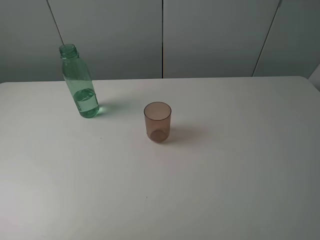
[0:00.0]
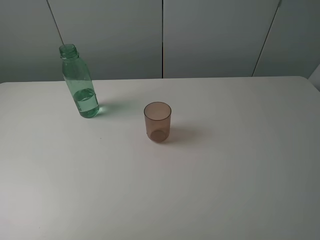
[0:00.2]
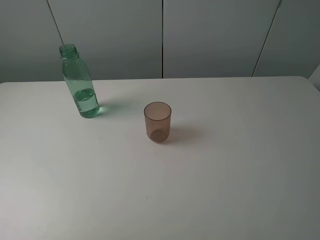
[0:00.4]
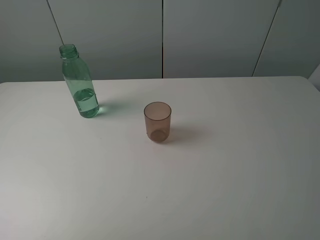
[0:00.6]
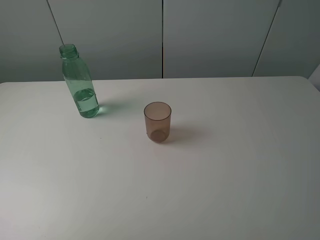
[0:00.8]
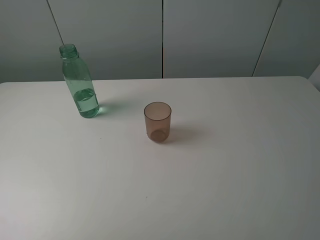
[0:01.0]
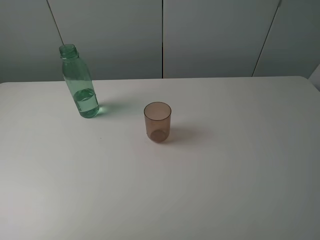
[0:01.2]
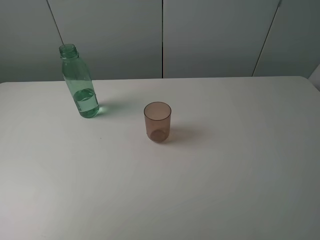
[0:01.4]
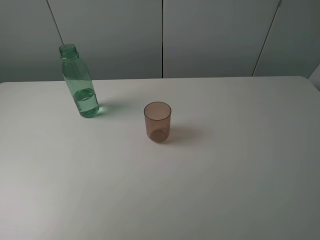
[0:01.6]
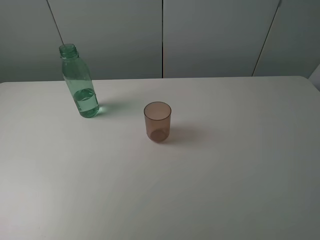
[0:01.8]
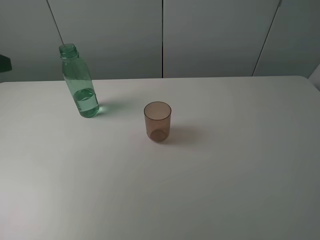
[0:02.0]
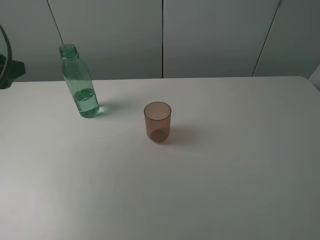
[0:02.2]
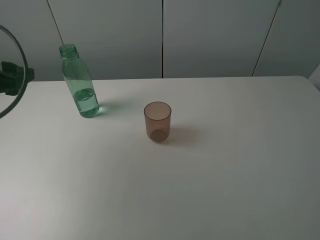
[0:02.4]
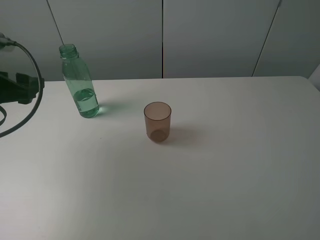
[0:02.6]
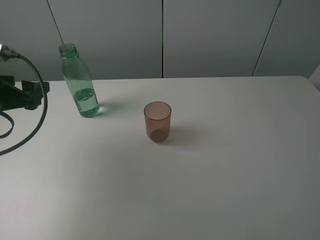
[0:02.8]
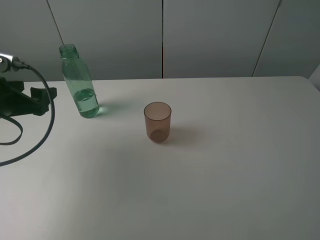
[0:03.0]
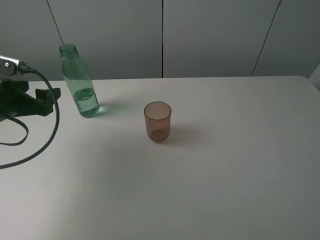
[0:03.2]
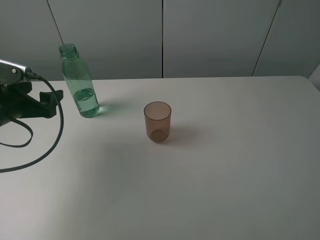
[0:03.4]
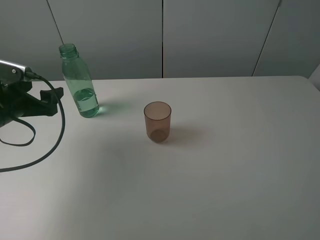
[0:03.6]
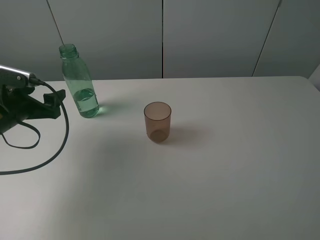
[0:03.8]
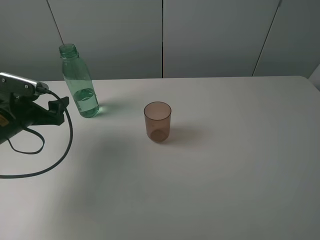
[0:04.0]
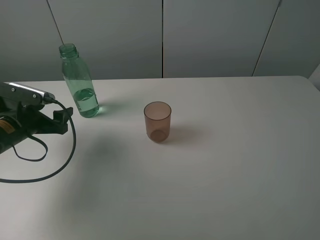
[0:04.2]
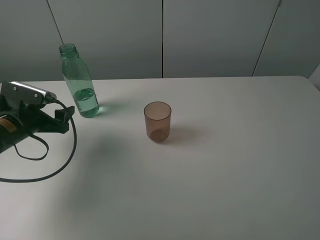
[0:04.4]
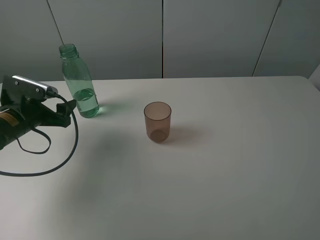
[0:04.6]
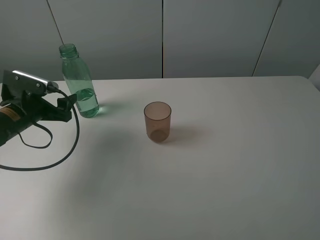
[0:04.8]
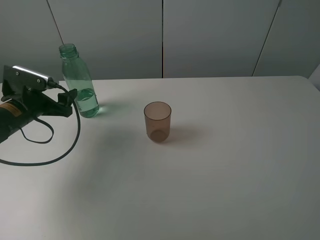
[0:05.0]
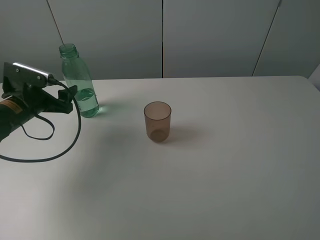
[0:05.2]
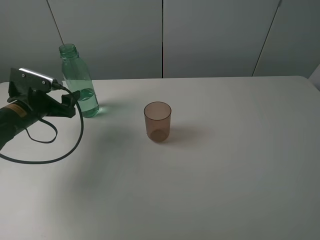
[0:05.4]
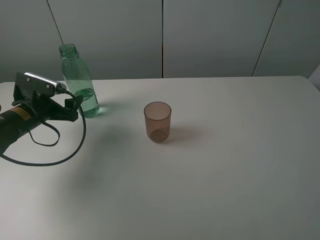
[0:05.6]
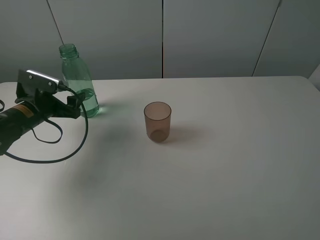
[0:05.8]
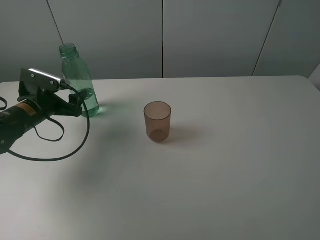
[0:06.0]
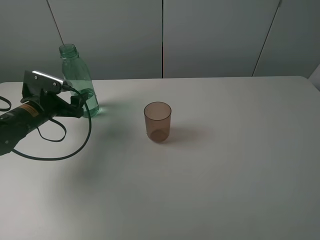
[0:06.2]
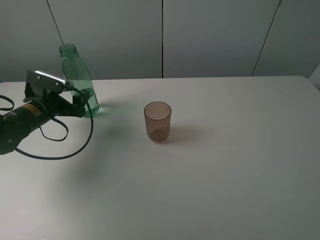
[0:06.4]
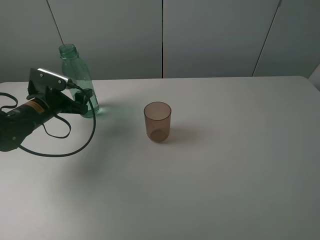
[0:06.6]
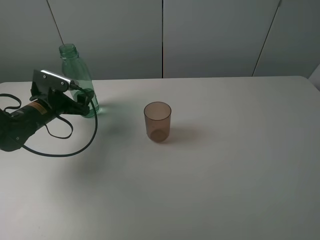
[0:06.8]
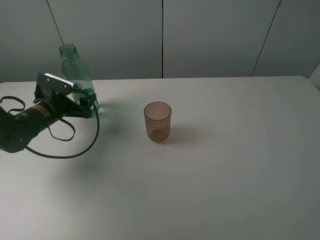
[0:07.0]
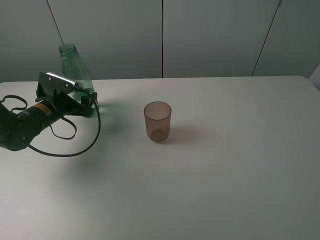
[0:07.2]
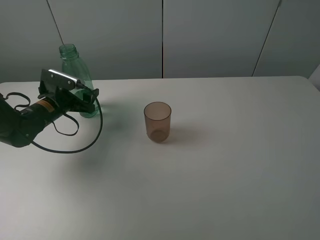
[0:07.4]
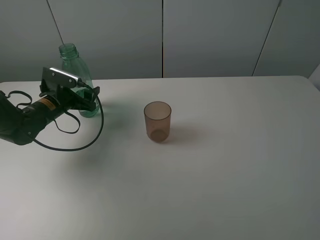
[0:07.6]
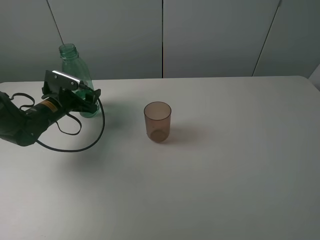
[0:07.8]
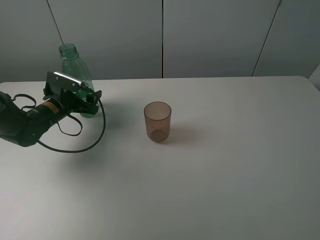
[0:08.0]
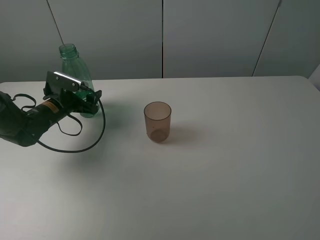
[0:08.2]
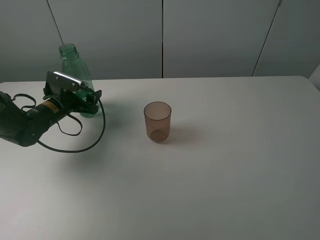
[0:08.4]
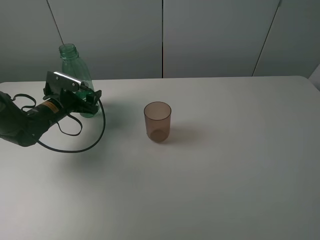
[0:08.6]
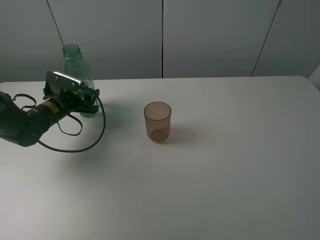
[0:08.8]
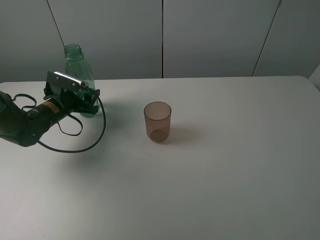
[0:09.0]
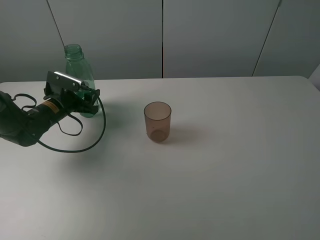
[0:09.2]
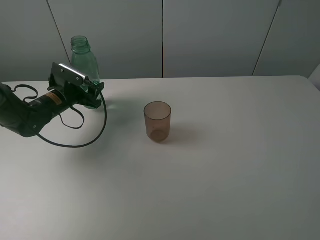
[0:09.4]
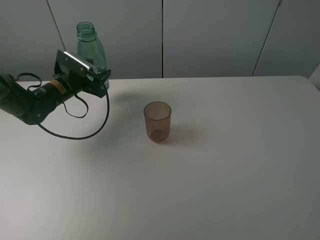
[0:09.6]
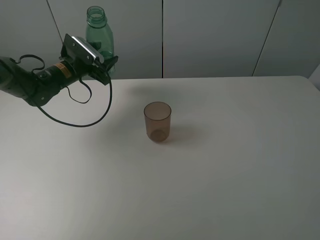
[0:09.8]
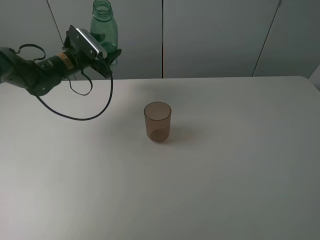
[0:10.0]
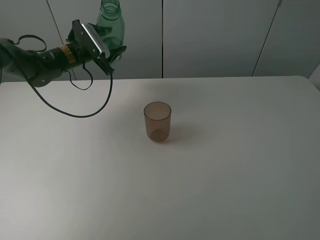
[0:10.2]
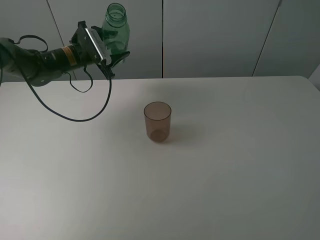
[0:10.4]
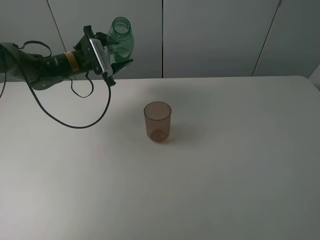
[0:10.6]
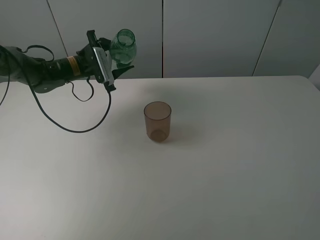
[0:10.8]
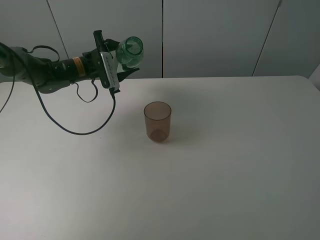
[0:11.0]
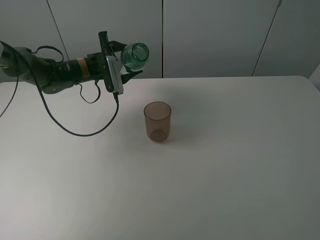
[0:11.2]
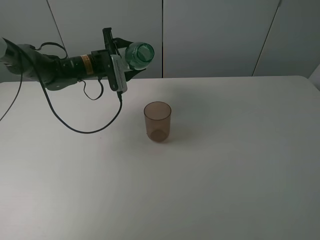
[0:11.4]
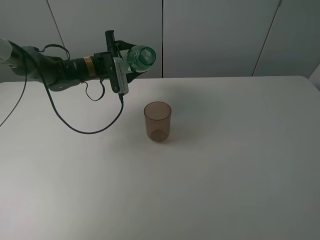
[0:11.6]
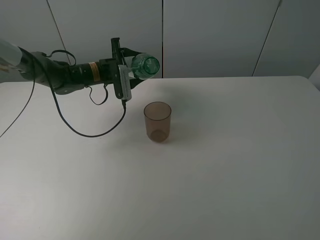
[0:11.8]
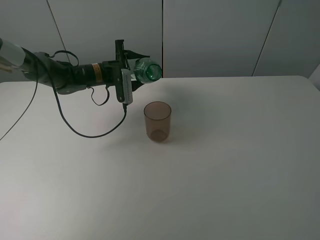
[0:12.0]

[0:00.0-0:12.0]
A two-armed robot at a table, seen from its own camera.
Task of the whole recording: pick up the bottle filled with water and pour it into the pink cup.
Step, 0:00.0 to 0:08.8: Grasp the green bottle with the left gripper.
0:01.6 to 0:03.0: The left gripper travels downward and forward by approximately 20 cm.
0:03.0 to 0:04.4: The left gripper is displaced downward by roughly 5 cm.
0:04.4 to 0:06.0: The left gripper ends up about 5 cm from where it was.
0:06.0 to 0:07.6: The left gripper changes place by about 5 cm.
0:07.6 to 0:09.0: The left gripper closes up.
0:09.0 to 0:10.4: The left gripper travels upward, forward and to the right by approximately 15 cm.
0:10.4 to 0:12.0: The left gripper is displaced to the right by some 5 cm.

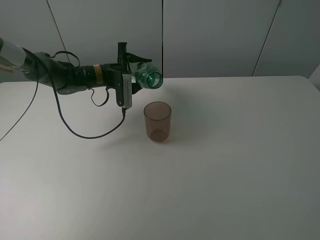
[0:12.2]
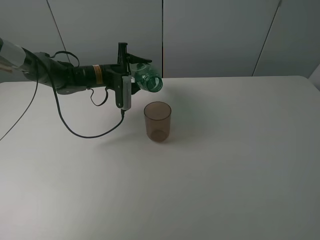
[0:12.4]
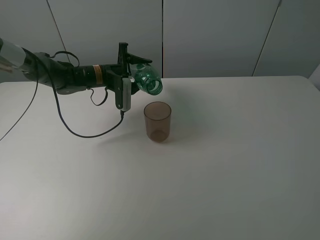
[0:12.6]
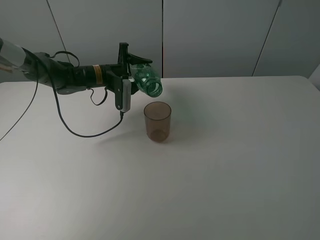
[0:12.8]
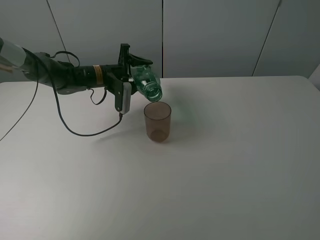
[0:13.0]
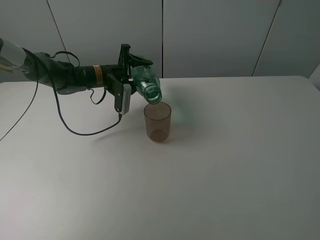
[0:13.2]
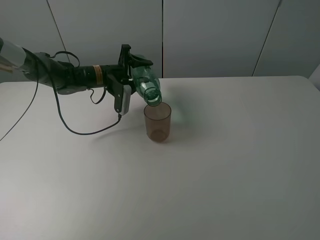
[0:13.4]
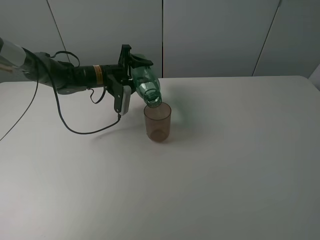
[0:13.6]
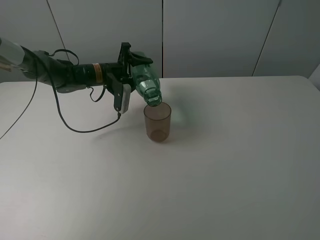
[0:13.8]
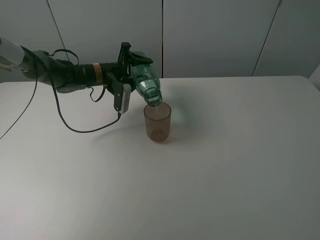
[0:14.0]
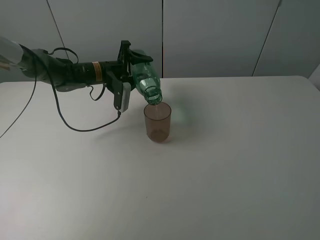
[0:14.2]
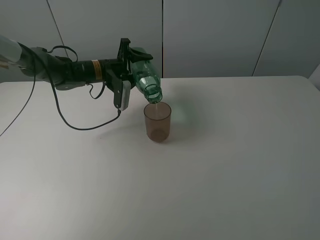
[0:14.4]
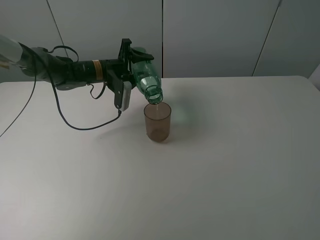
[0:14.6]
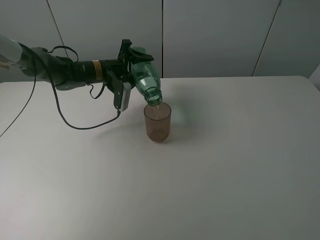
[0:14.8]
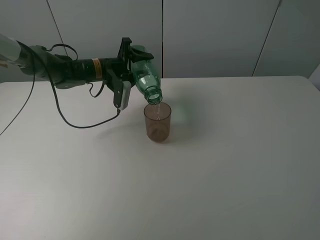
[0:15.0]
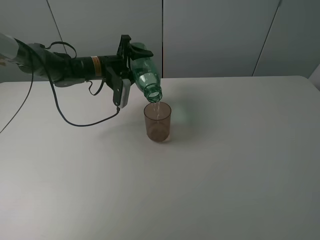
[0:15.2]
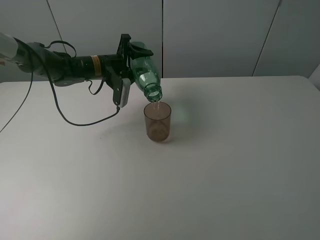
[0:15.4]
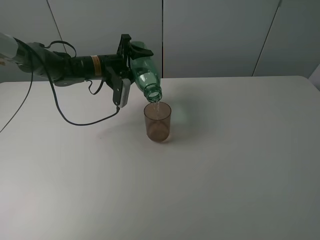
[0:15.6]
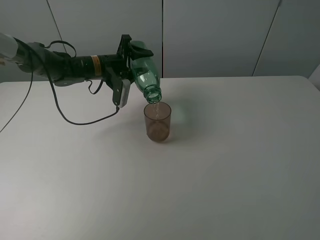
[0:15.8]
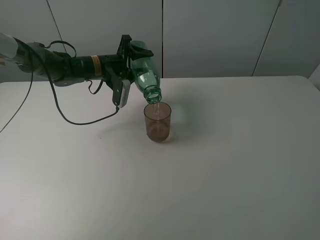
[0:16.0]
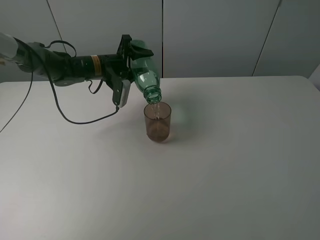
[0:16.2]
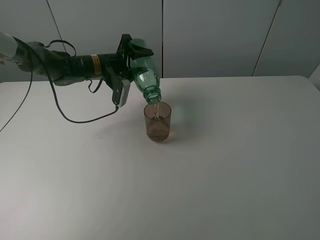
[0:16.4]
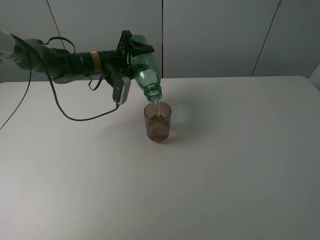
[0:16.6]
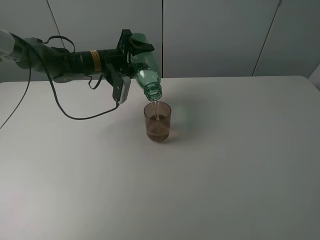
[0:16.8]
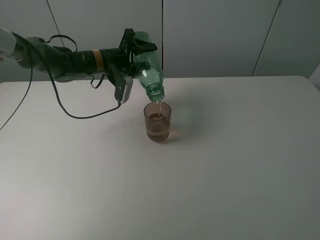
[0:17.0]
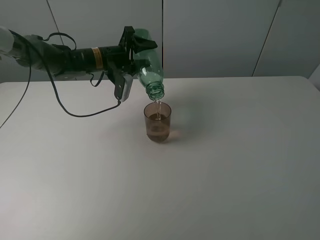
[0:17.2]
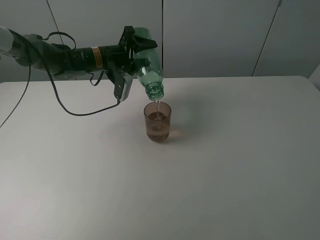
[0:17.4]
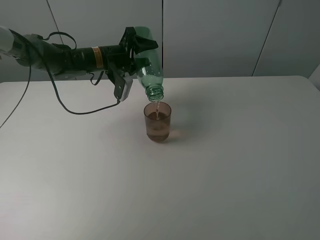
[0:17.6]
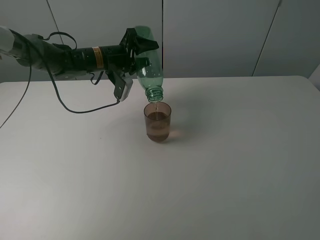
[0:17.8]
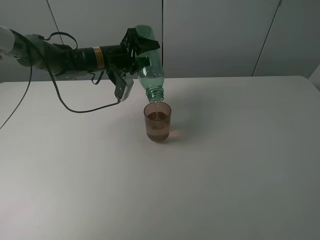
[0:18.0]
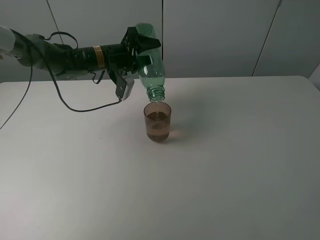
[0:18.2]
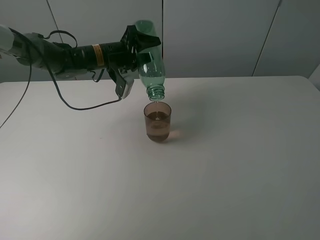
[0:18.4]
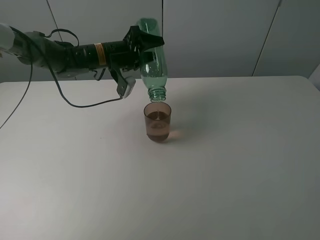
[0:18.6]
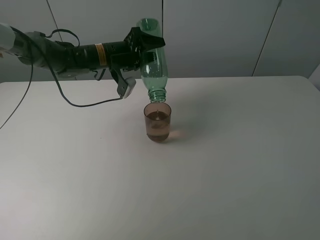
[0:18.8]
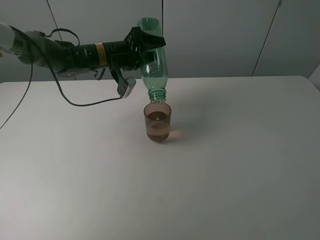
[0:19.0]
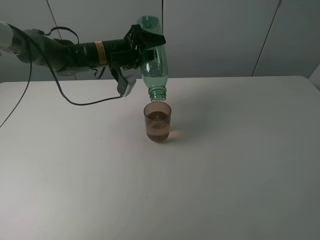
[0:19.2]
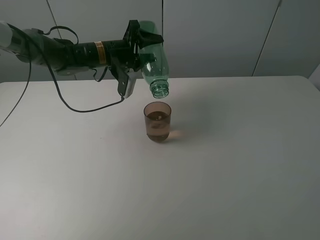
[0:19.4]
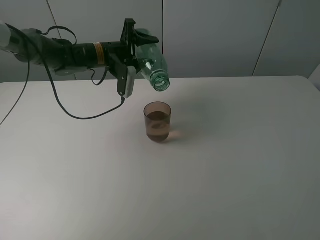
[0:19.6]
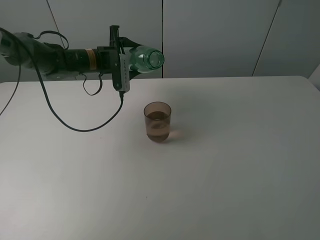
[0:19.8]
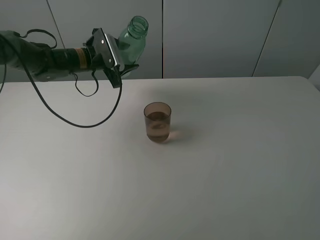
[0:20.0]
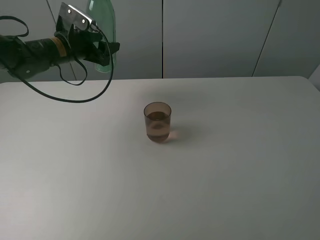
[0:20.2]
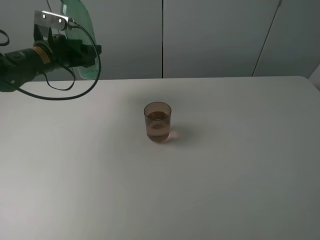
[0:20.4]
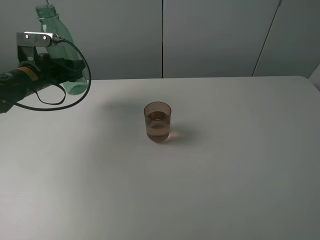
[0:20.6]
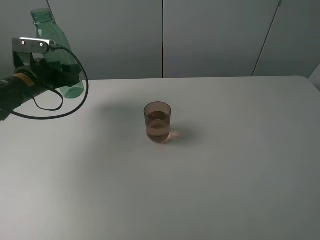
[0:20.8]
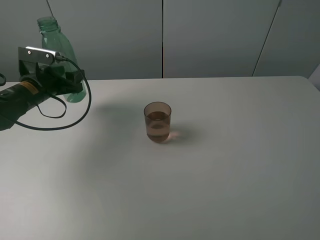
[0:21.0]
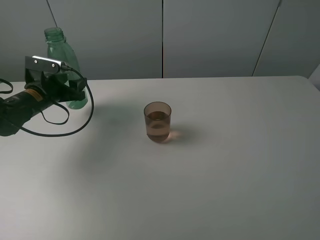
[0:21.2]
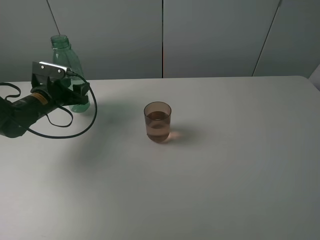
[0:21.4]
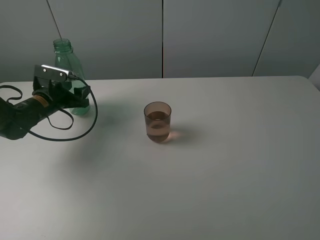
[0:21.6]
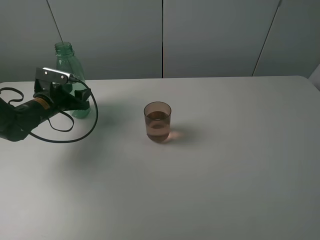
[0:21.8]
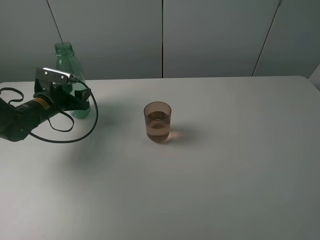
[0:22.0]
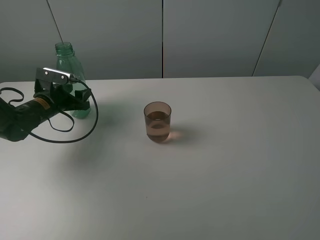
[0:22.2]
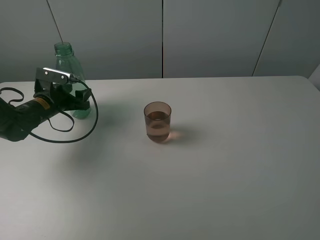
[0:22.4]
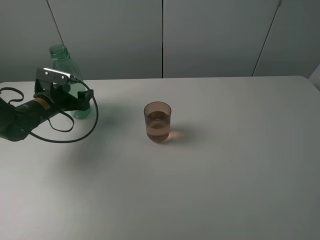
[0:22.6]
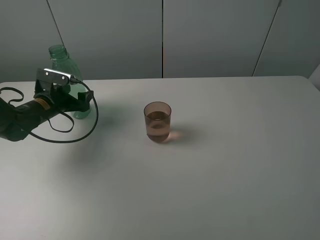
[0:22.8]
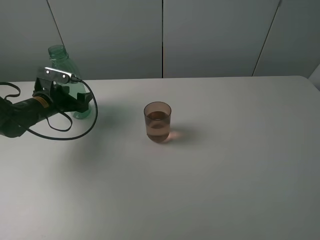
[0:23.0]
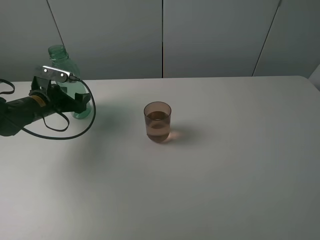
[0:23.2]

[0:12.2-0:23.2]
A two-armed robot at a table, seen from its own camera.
Task of the whole recording: pick up the bottle filled with water and pour it into the pink cup.
Step, 0:12.2 to 0:19.6: Pour water from green bottle to pink cup with the left gripper.
0:13.8 to 0:17.0: There are only small adjustments of the grippers.
0:17.0 to 0:18.4: There are only small adjustments of the grippers.
0:18.4 to 0:20.0: The left gripper is displaced to the left by about 5 cm.
0:20.0 to 0:21.6: The left gripper travels to the left, downward and backward by about 15 cm.
0:21.6 to 0:23.2: The left gripper opens its fingers.
